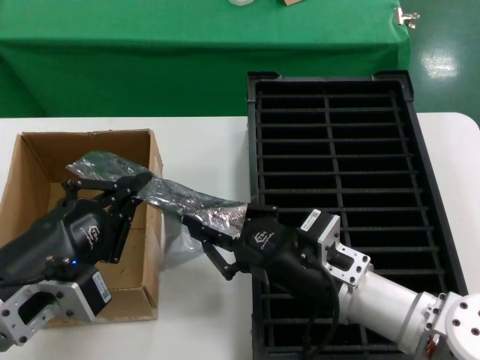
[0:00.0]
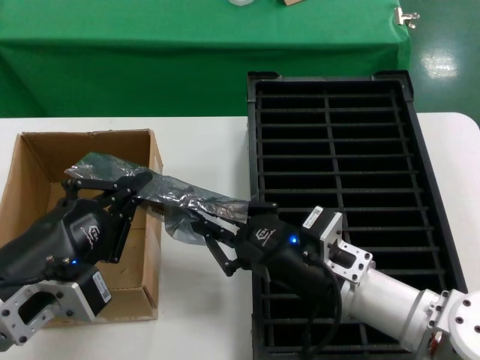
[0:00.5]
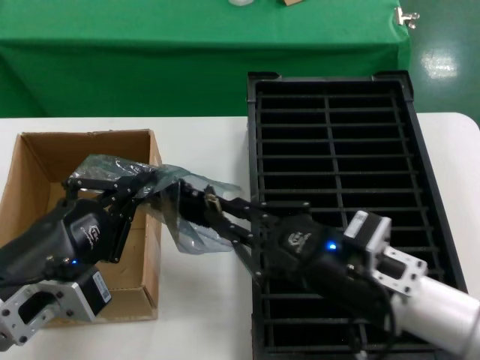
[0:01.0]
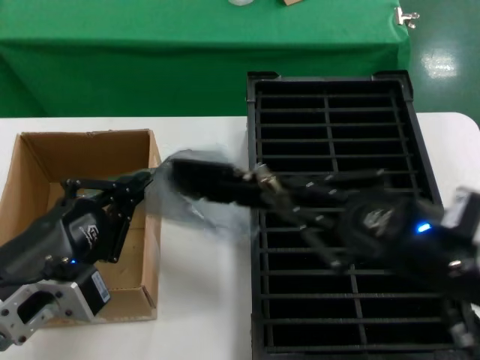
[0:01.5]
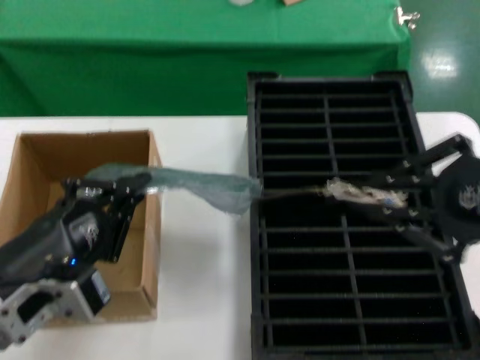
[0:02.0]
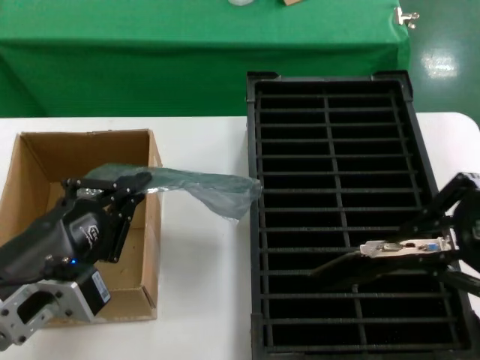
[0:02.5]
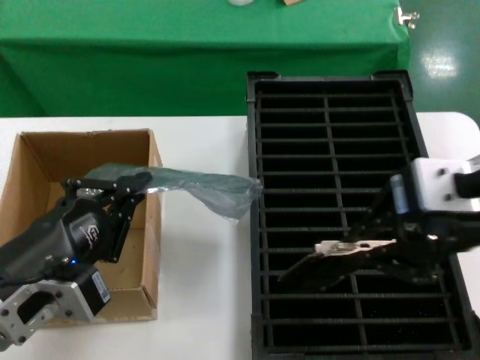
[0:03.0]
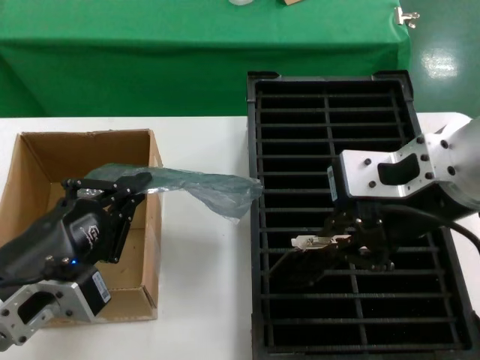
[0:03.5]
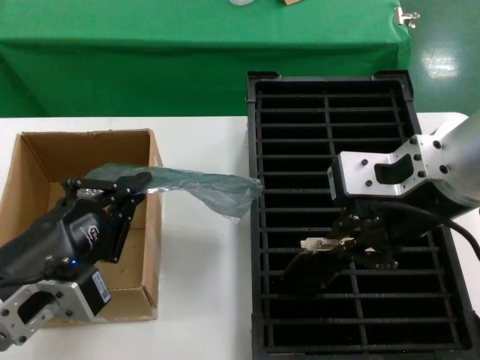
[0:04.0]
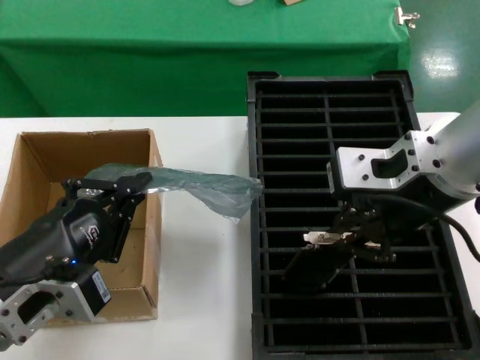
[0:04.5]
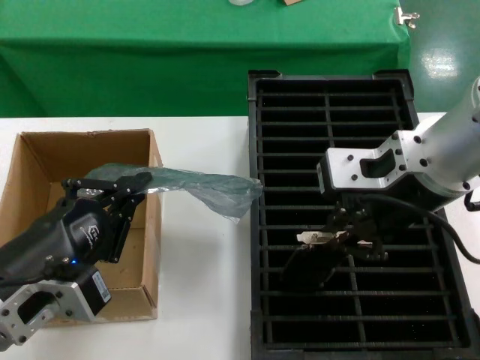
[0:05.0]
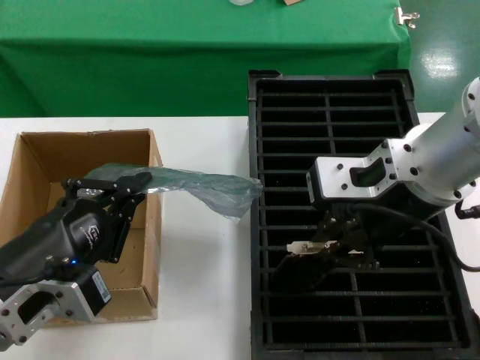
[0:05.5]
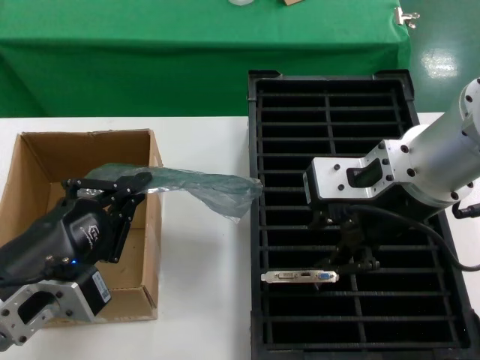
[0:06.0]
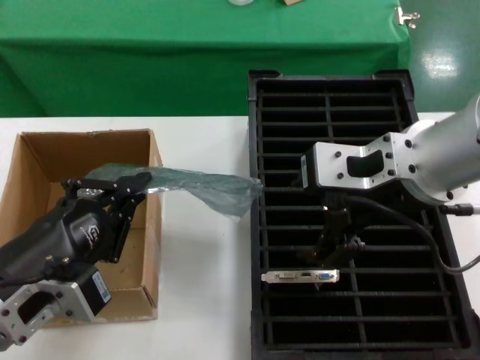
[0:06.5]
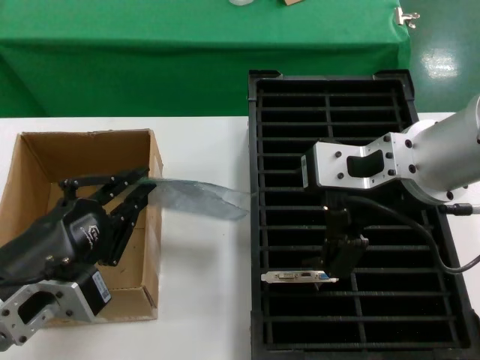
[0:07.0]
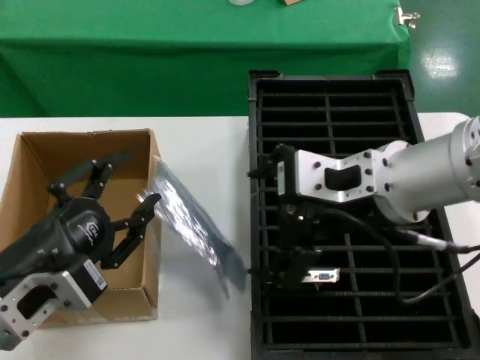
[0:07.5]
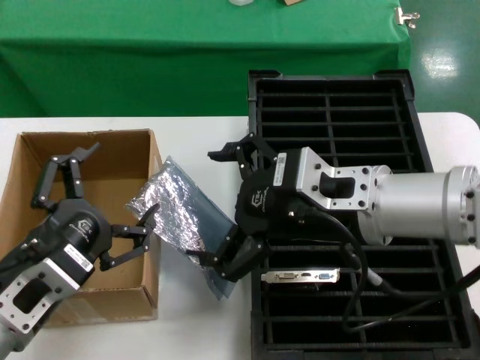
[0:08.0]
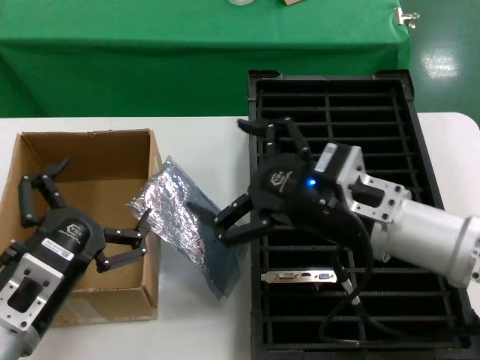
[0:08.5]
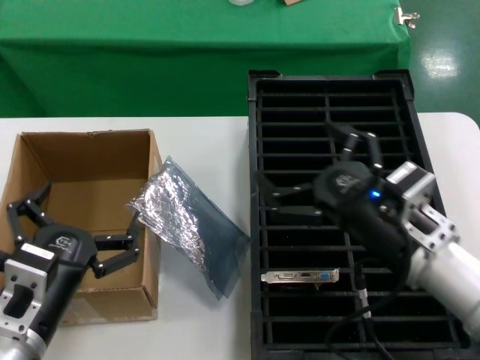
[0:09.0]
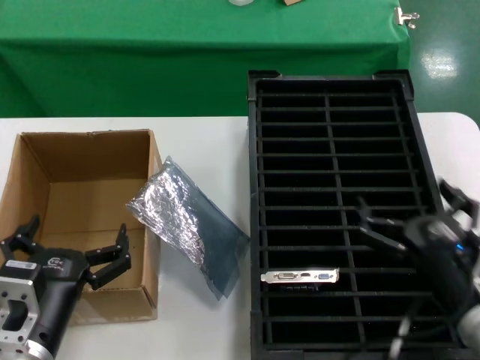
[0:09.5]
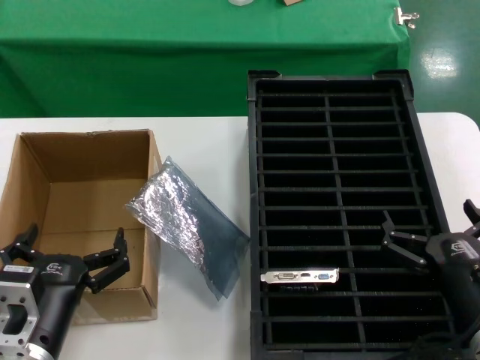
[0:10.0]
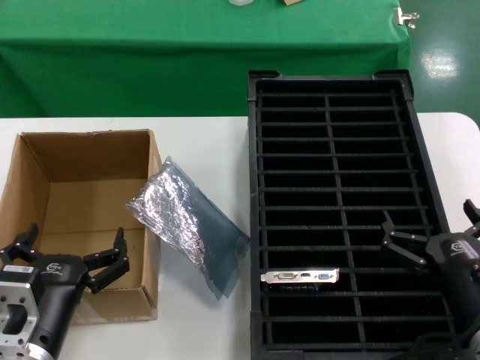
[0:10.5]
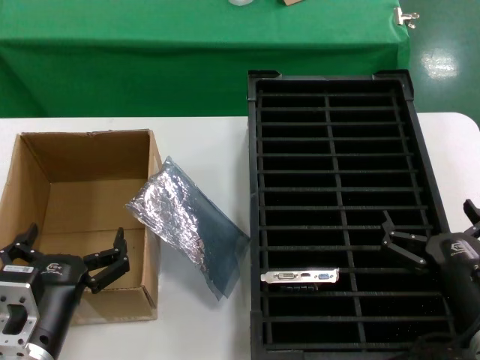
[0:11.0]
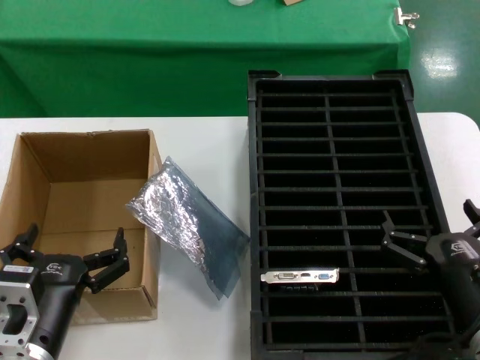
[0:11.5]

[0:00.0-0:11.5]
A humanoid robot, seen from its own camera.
Task of the whole recording: take out graphics card from box remove packaging put into black container.
Step, 0:00.0 to 0:02.0: Take out the hard disk of the bag.
Step, 0:02.5 to 0:05.5: Place the hard disk in the hard disk enclosure.
Step, 0:06.0 to 0:07.5: Place the down the bag.
0:00.0 to 0:02.0: The right hand is displaced upward, to the right and backward by approximately 30 cm.
0:02.0 to 0:04.0: The right hand is displaced to the left and forward by roughly 15 cm.
0:04.0 to 0:06.0: The hands stay close to where they were, moving slightly.
0:07.5 to 0:09.5: The right hand moves downward and to the right, some 25 cm. Meanwhile the left hand goes about 10 cm downward.
0:09.5 to 0:11.5: The hands stay close to where they were, moving slightly.
